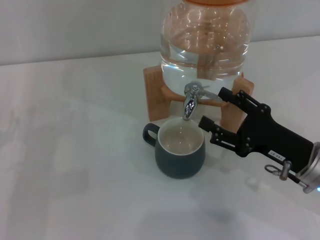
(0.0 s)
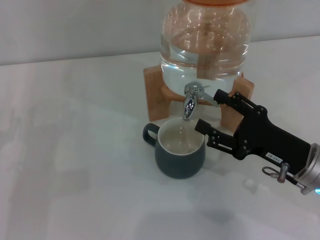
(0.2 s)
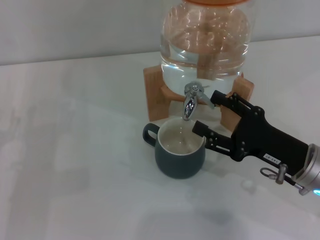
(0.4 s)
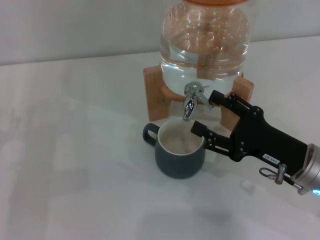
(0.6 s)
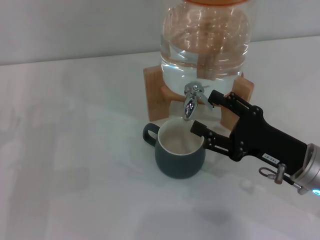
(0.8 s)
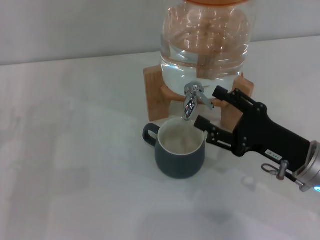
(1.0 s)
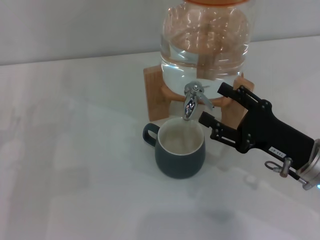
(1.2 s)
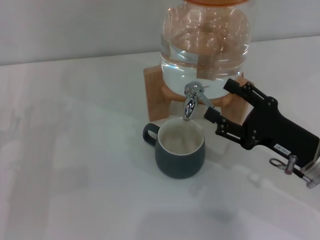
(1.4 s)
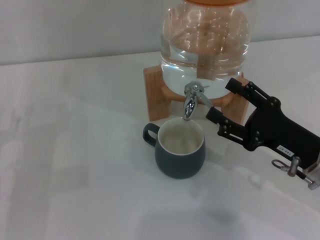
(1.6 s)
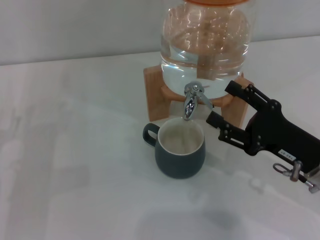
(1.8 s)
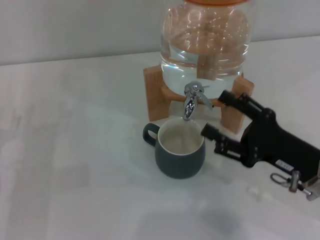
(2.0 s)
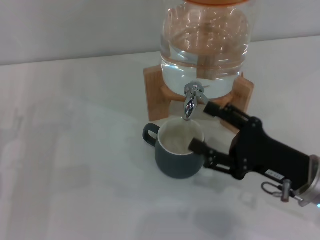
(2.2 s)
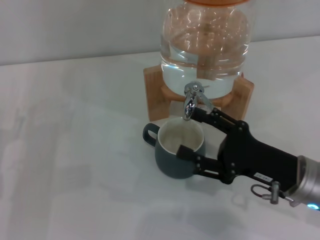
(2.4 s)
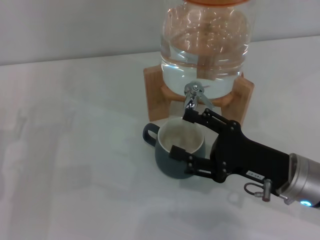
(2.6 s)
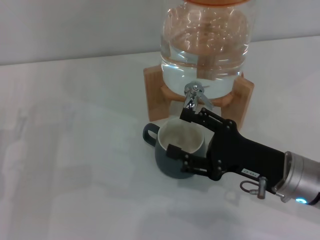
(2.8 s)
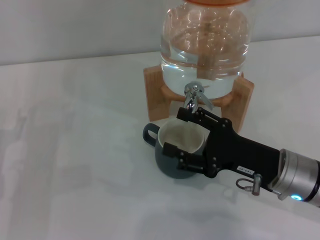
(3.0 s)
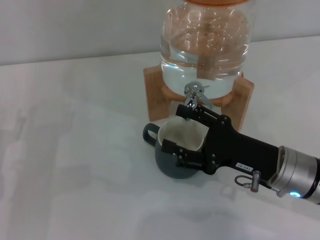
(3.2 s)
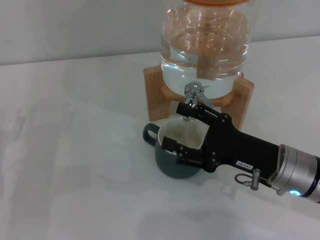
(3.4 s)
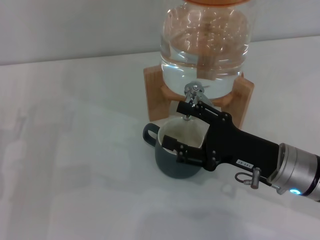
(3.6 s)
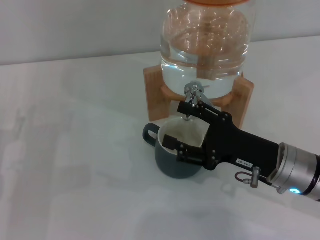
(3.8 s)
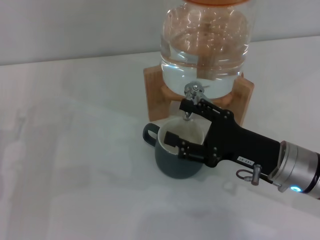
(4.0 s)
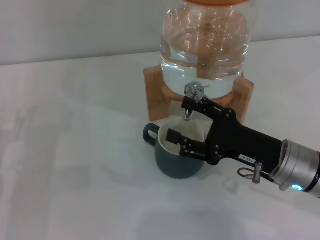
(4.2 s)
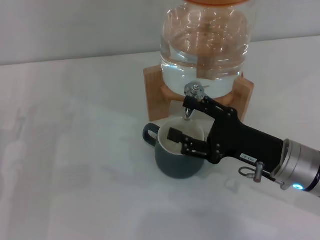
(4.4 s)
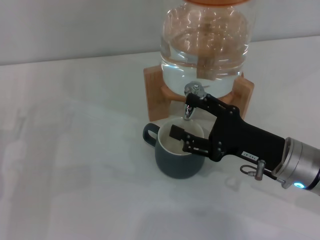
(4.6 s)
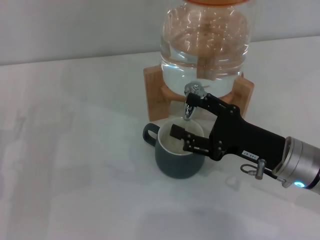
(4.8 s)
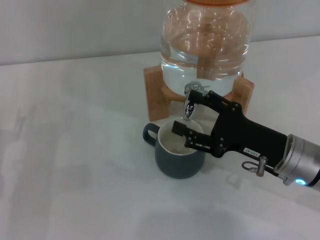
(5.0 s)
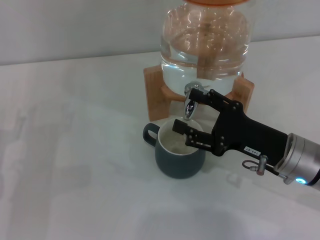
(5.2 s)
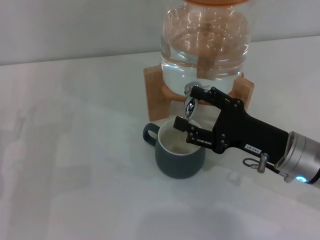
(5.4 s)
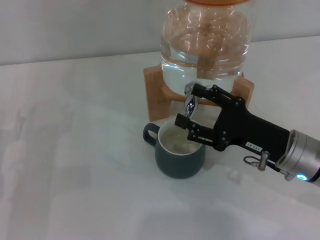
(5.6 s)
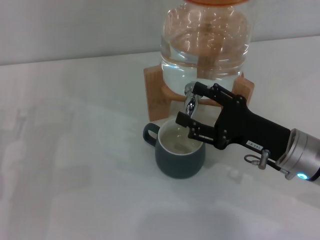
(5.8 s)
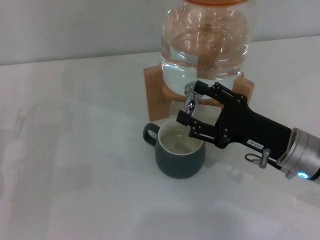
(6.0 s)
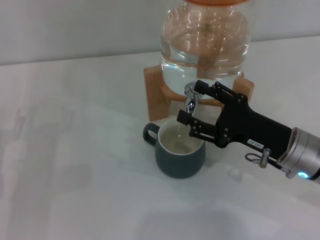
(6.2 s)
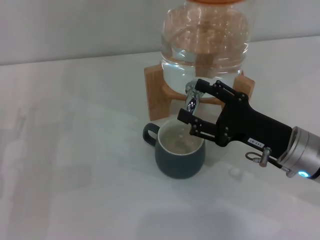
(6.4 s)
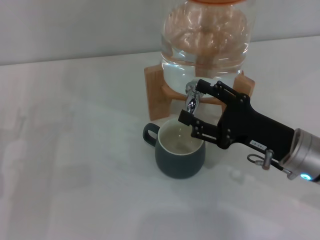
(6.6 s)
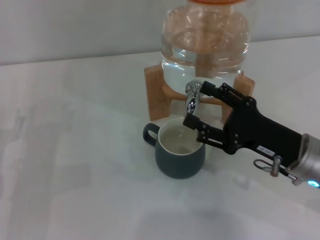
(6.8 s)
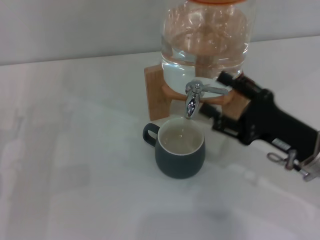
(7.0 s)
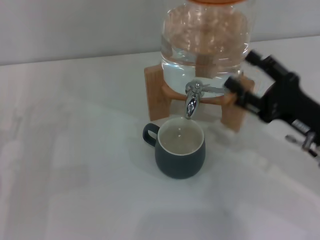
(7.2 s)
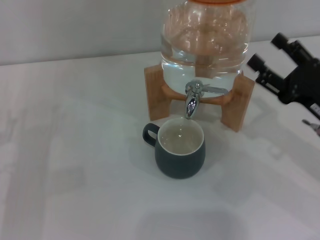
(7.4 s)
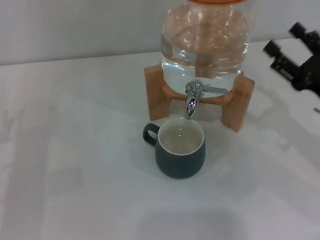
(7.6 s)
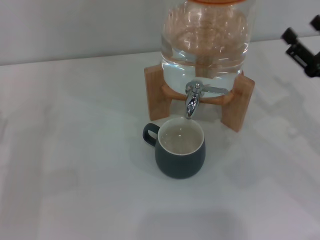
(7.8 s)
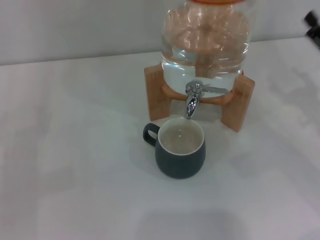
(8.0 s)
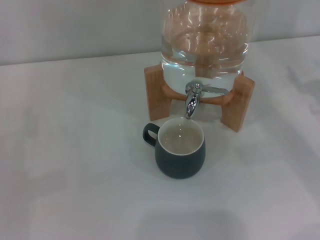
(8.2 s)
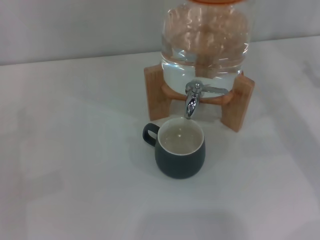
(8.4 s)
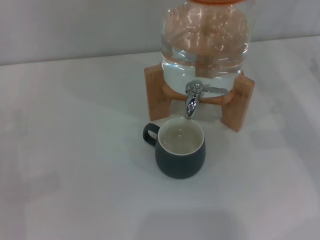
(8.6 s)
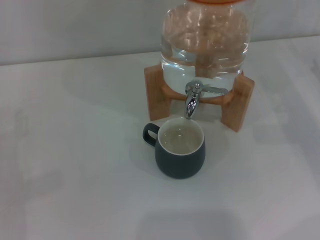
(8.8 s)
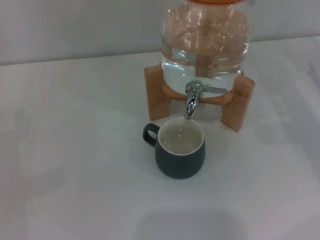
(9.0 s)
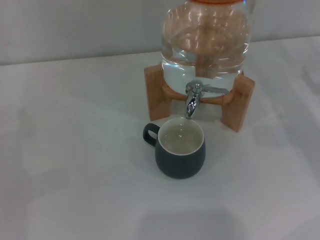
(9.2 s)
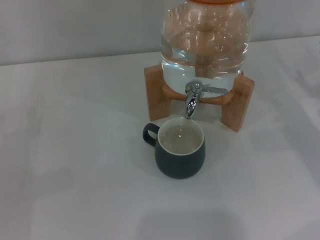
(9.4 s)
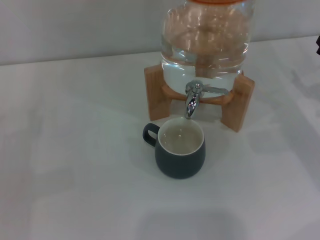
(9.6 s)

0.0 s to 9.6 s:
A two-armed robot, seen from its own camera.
Task of the whole recording: the left gripper pick up the black cup and place it horizontally under the faucet, the right gripper turn on the faucet to fill the cup, and then turn off the faucet.
Step, 0.0 to 3.0 s: Open the dispenser valve and fill the cup with water with the right gripper.
Step, 3.2 to 7.2 s: Close the dispenser valve with the right gripper.
0.0 to 1.6 s: Both grippers stay about where they are.
1.6 to 3.2 s: There are only small adjustments of the grippers.
3.2 to 4.8 s: Neither gripper changes place.
4.8 to 6.4 s: The two grippers keep their place.
6.4 to 8.0 s: The right gripper goes some 10 cm to the right.

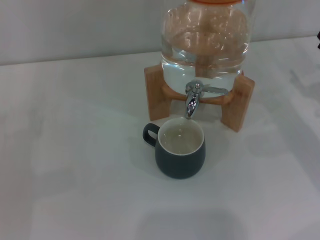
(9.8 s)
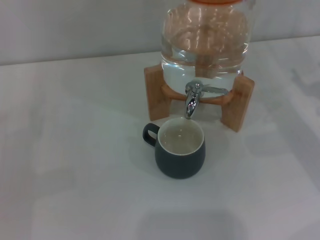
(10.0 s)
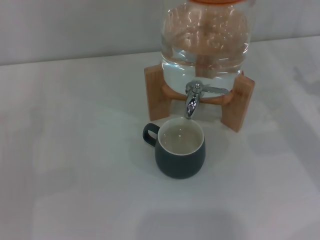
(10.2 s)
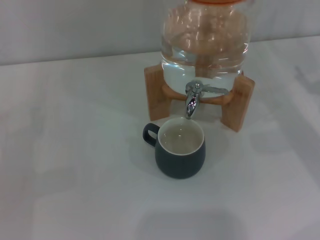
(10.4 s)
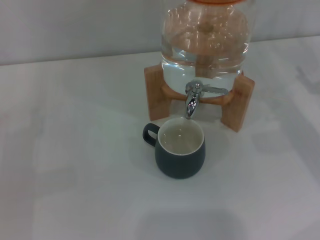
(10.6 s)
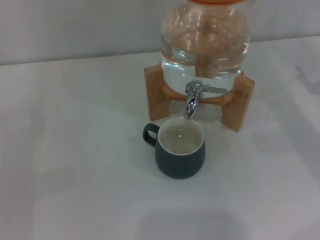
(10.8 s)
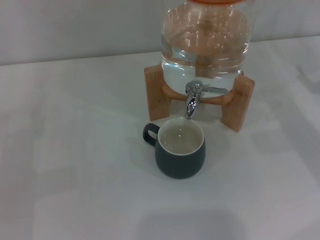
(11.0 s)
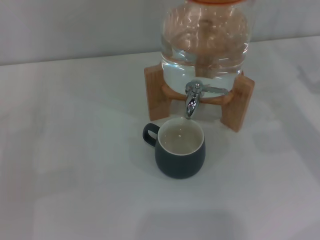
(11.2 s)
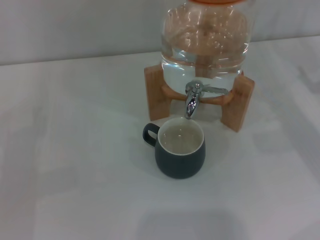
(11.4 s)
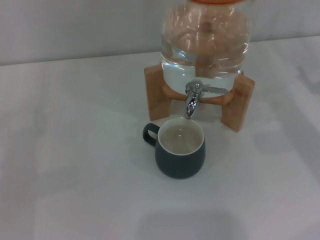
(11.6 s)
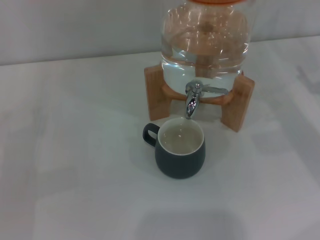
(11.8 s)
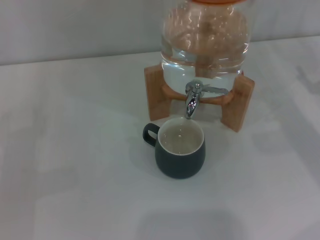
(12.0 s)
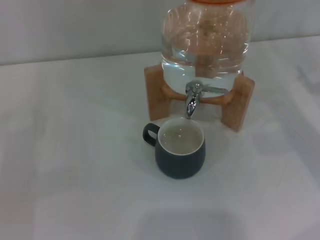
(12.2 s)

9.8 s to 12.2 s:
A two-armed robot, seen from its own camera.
Task of the whole recording: the left gripper pick up the black cup and place it horizontally under the faucet, the right gripper turn on the faucet to fill the cup, and then turn off the faucet.
11.0 to 12.2 s: Both grippers stay put.
